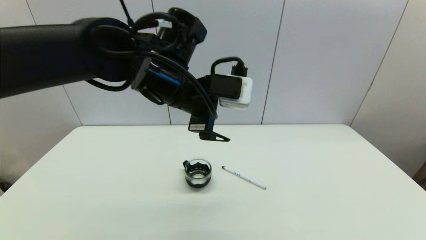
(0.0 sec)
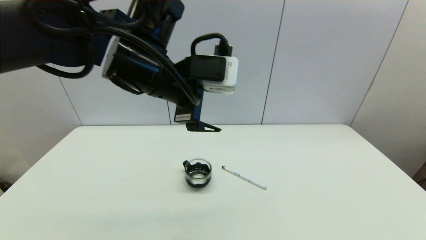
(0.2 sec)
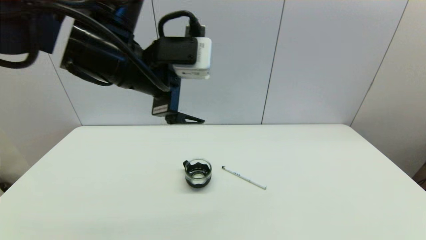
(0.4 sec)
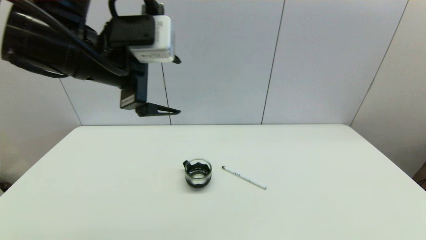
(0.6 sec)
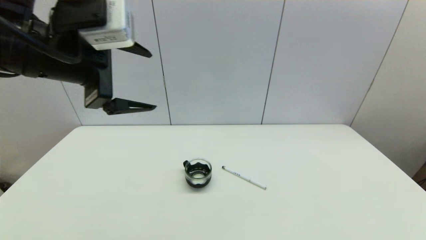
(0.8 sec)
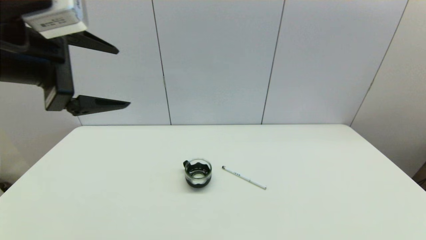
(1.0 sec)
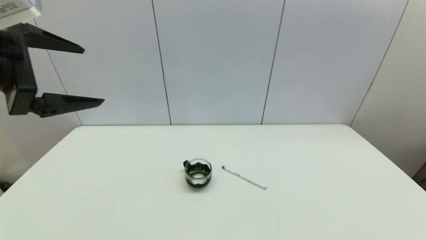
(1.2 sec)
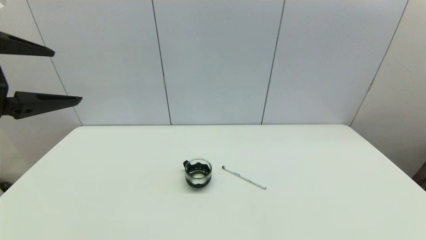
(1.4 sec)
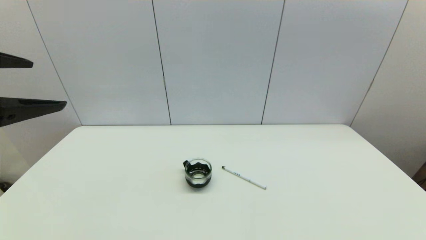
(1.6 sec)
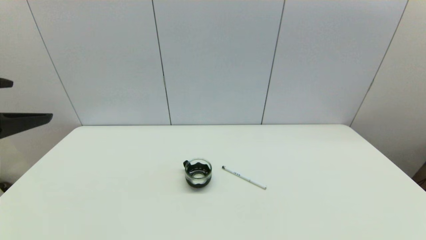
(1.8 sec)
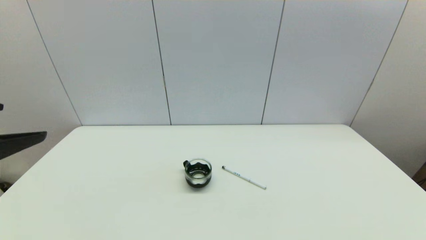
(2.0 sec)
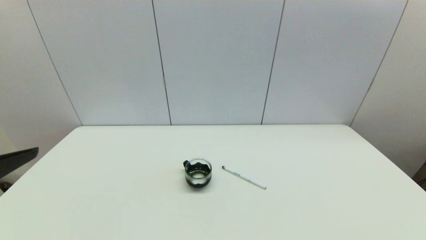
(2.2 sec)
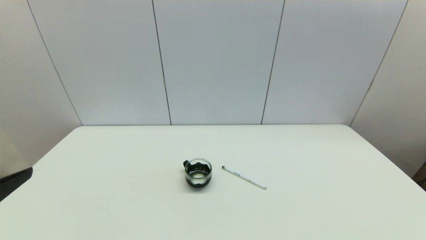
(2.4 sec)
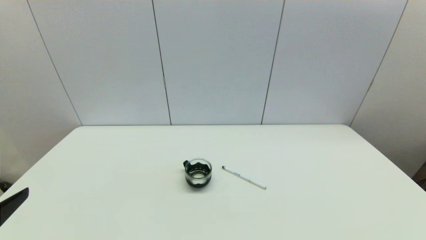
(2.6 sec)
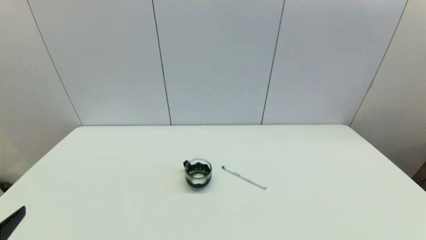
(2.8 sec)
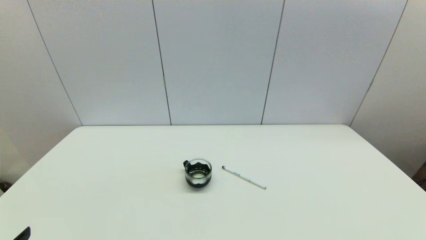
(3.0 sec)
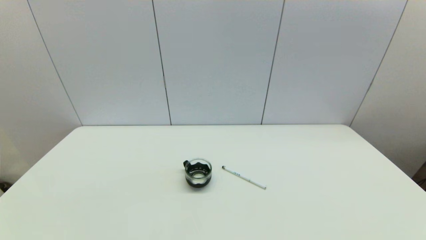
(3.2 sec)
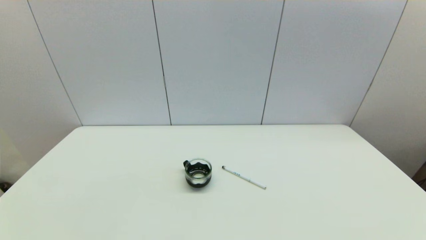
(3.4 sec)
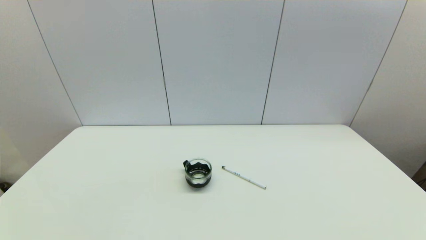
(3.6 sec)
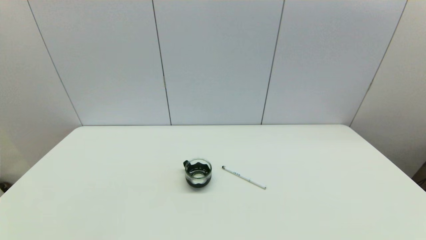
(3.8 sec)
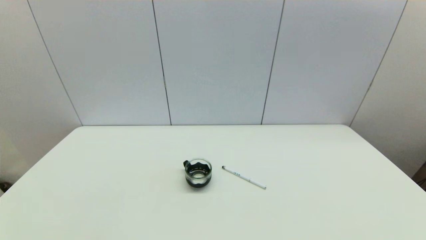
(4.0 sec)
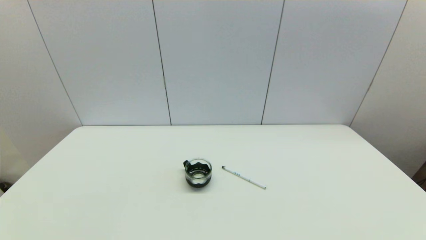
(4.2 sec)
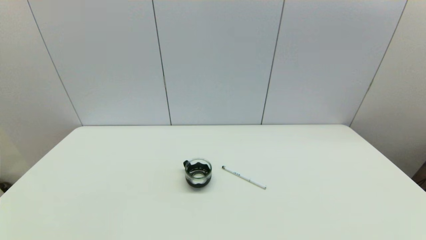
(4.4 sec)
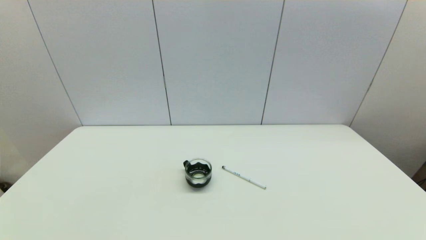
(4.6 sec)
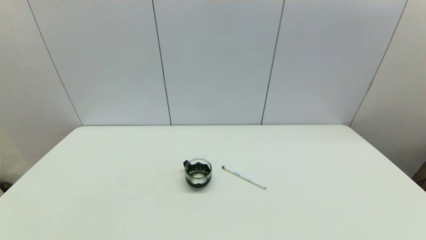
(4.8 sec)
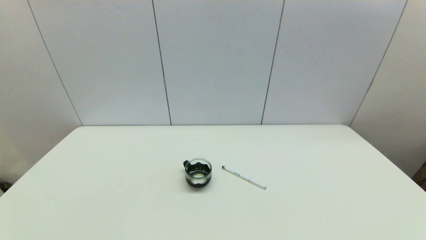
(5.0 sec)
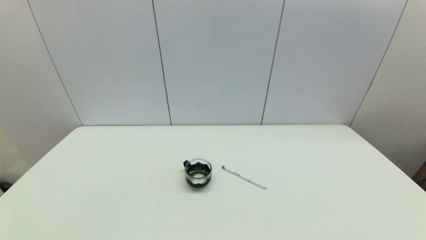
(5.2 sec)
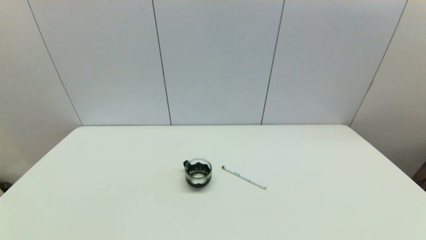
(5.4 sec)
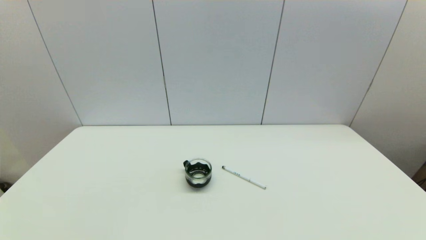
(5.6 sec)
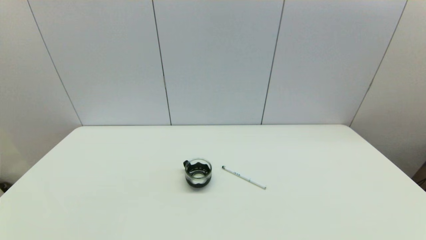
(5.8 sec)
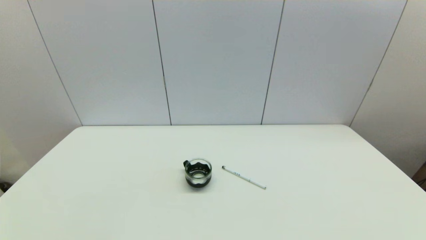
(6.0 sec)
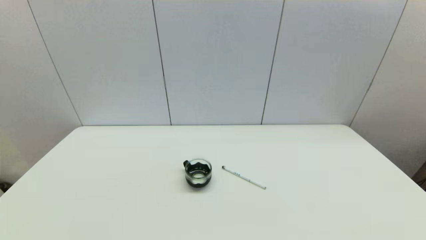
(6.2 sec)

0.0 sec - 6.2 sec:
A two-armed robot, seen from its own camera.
Task of the whole recording: put the pen in the designated position.
0.0 sec - 1.6 sec: The left gripper shifts approximately 25 cm to the left and backward.
1.6 sec - 3.2 sec: The left gripper travels downward and backward by approximately 25 cm.
4.6 sec - 6.2 sec: The two grippers keep their place.

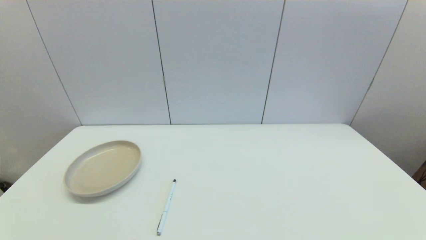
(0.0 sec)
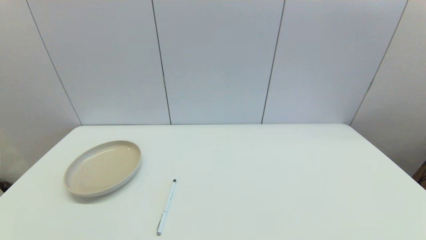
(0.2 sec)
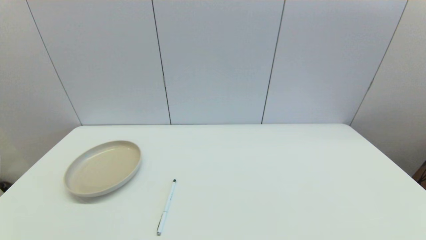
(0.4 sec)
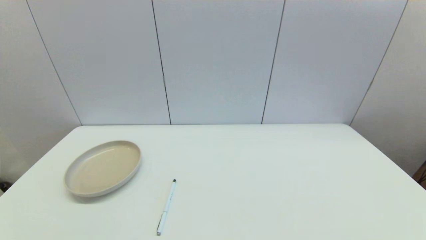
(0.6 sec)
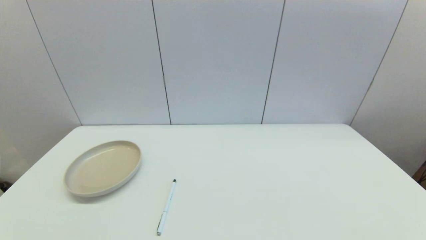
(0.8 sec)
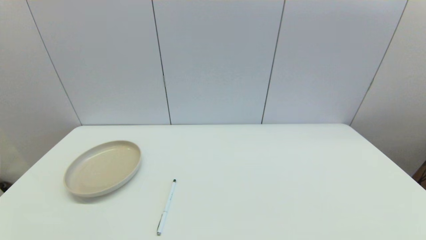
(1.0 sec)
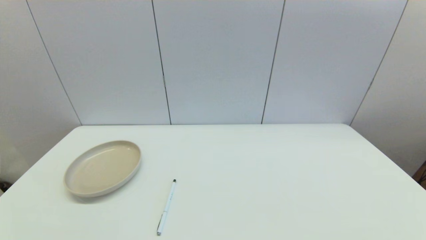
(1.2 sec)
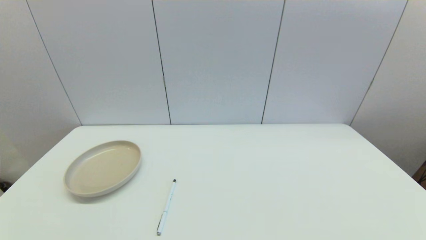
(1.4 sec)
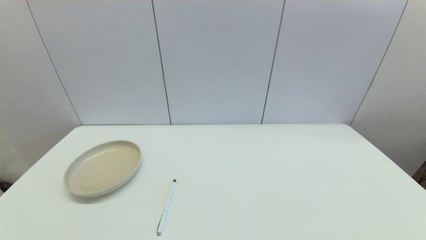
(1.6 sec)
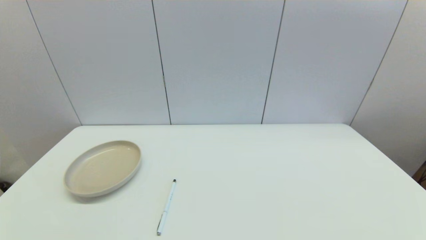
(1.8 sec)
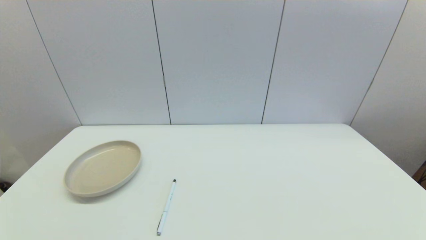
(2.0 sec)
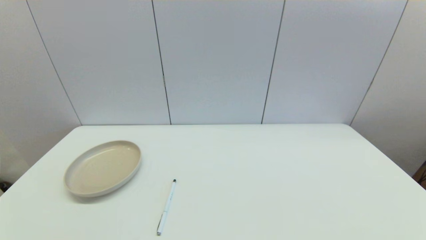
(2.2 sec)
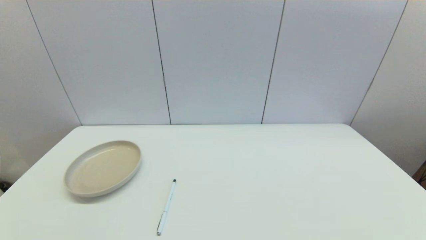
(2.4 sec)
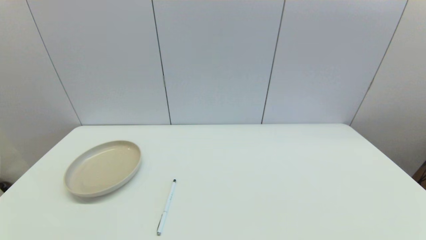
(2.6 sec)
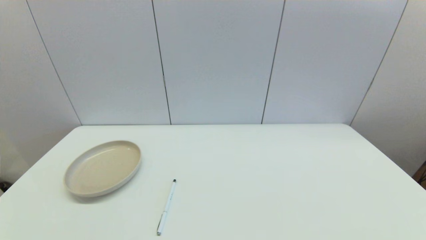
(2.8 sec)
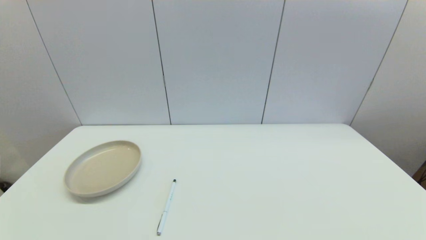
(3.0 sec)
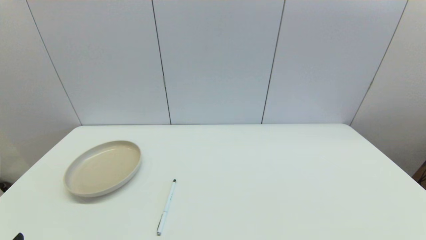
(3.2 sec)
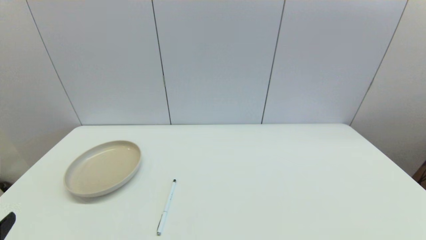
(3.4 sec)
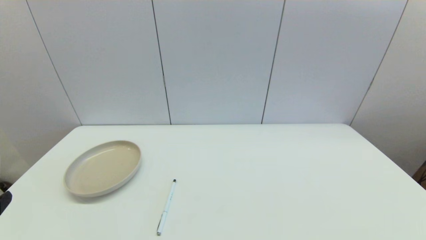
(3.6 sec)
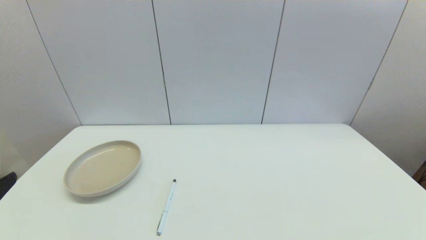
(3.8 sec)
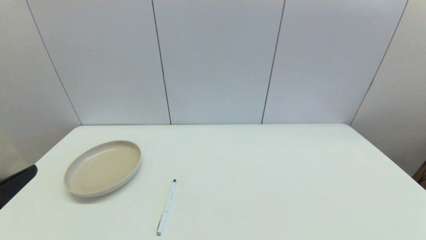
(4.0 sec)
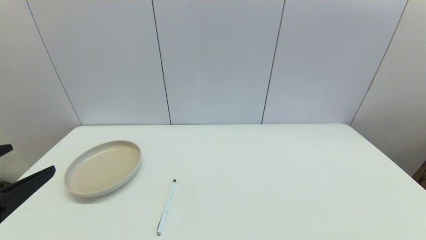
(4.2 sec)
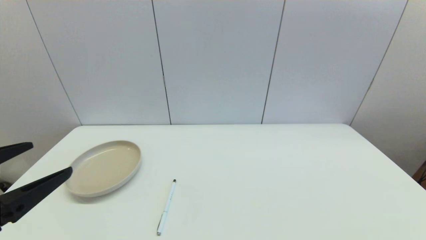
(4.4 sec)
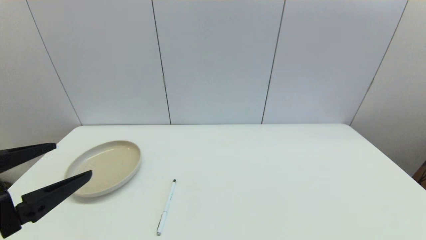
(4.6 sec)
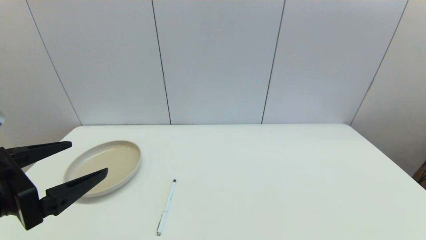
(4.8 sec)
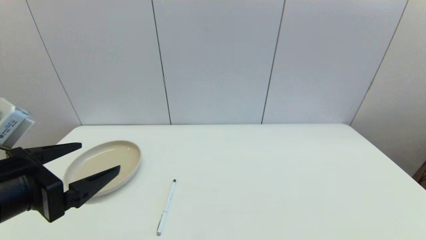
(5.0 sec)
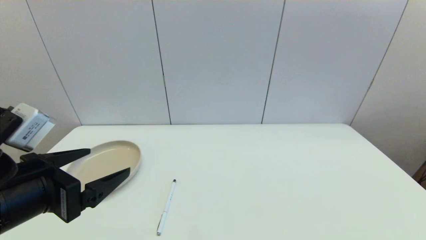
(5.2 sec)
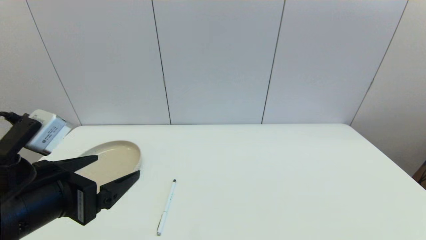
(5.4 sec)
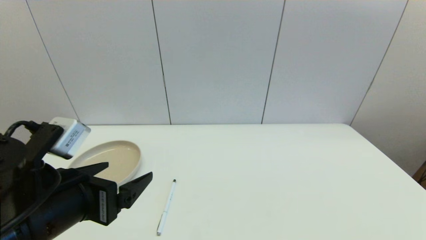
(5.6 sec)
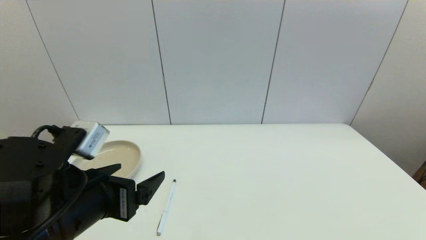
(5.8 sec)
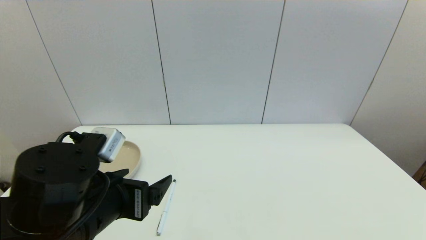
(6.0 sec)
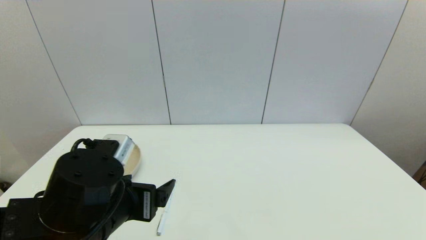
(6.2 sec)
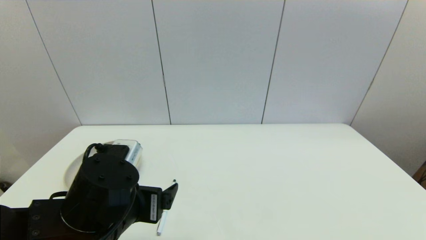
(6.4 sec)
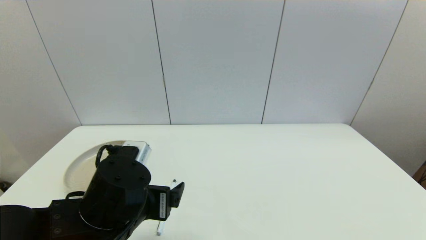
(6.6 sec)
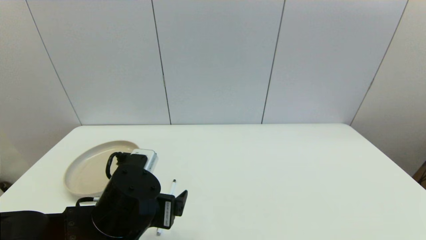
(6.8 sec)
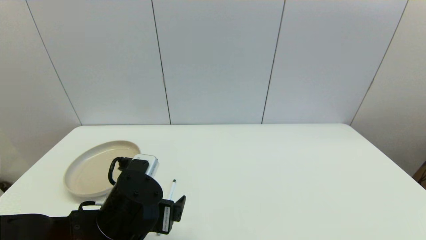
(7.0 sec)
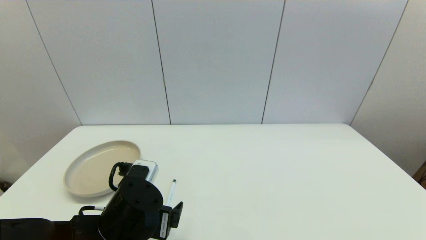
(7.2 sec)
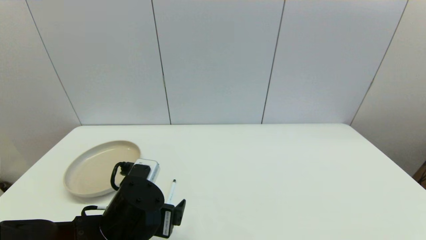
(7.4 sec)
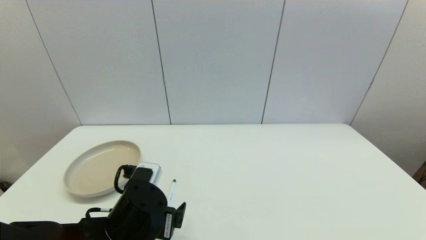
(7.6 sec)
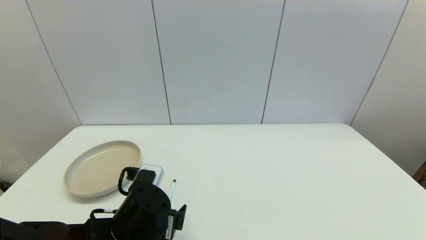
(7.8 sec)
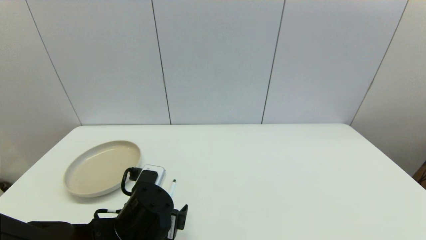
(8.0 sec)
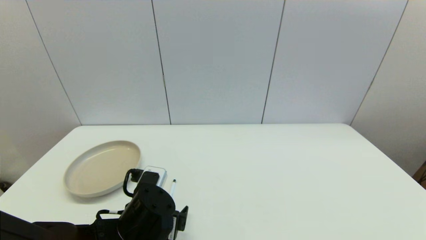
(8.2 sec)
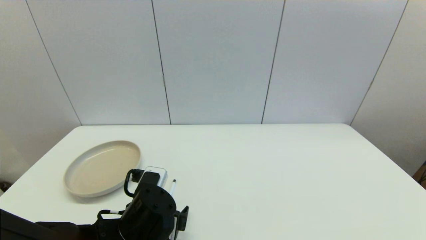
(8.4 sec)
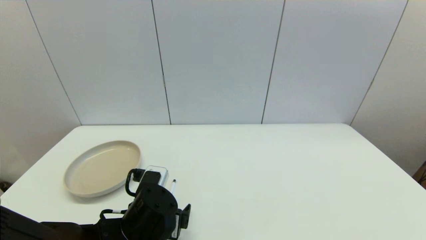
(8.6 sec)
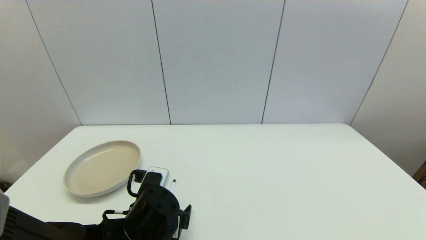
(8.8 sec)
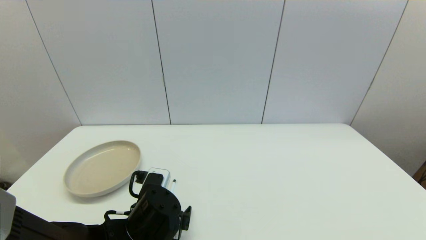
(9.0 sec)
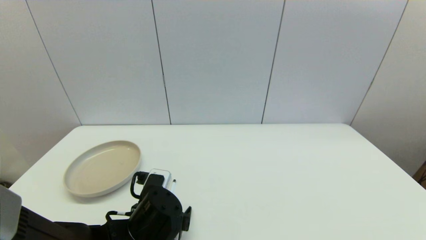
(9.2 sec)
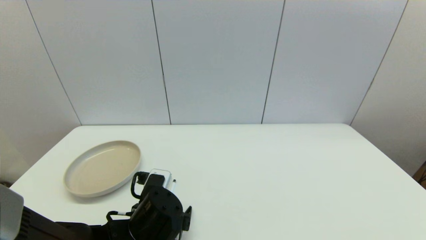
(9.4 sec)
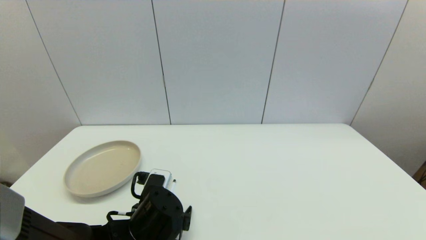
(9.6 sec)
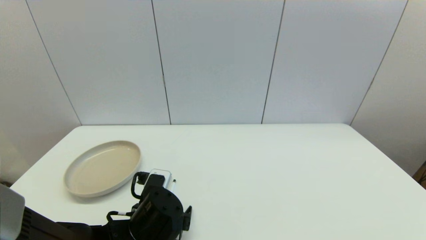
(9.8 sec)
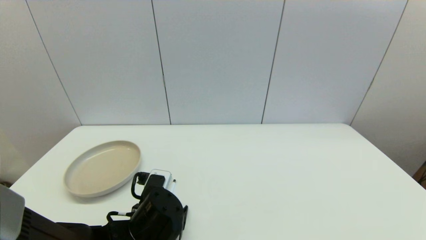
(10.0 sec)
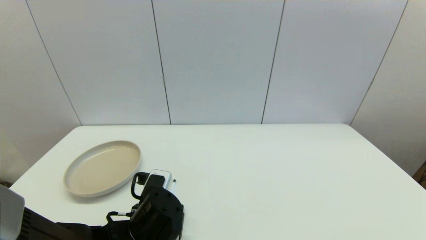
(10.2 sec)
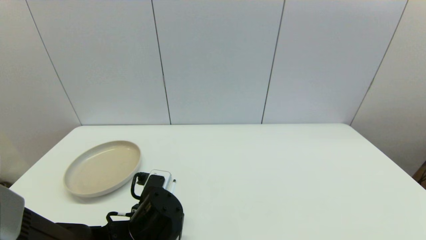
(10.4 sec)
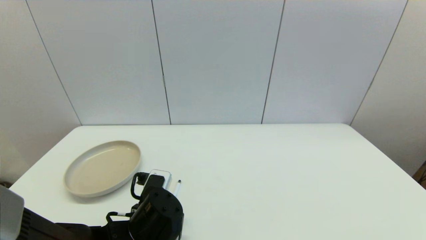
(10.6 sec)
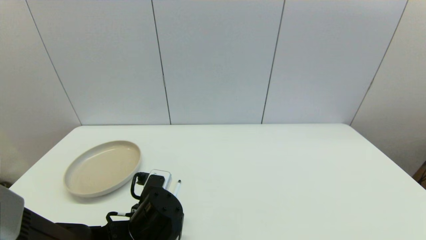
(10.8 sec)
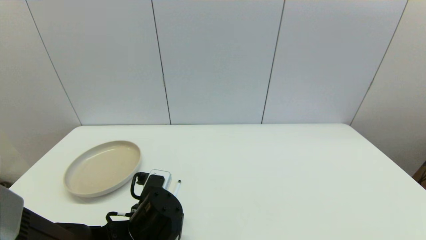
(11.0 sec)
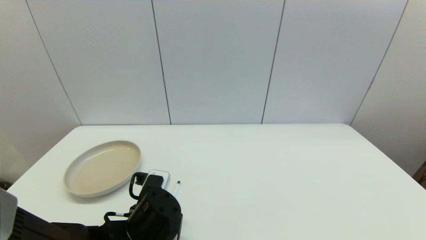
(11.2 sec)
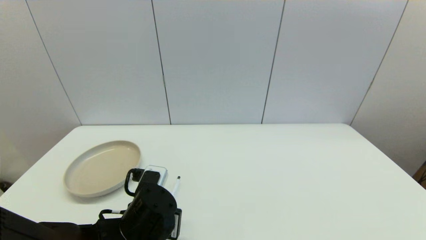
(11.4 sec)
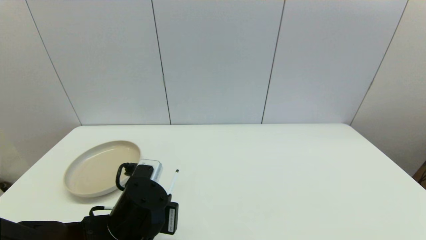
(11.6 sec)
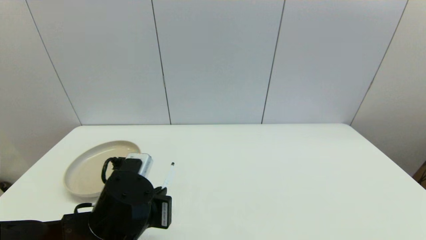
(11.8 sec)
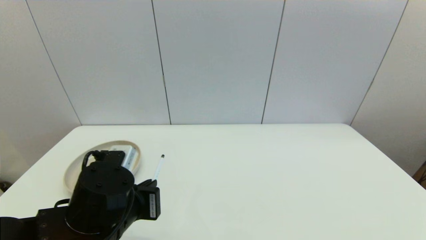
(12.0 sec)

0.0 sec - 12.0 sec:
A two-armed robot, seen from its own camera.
Task of the whole recording: put the pen in the designated position.
Step, 3.2 sec - 10.6 sec: Grasp the sign pen with left gripper.
0.0 sec - 1.6 sec: Both grippers stay about where they are.
3.0 sec - 4.4 sec: The left gripper moves upward and forward, some 15 cm.
4.4 sec - 6.0 sec: The left gripper shifts approximately 15 cm to the right, downward and forward.
6.0 sec - 7.6 sec: The left gripper moves downward, roughly 10 cm.
7.6 sec - 9.0 sec: The grippers make only small movements.
9.0 sec - 10.4 sec: The left gripper closes its fingers.
10.4 sec - 12.0 sec: The left gripper heads upward, covering about 5 cm.
